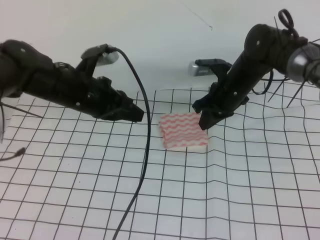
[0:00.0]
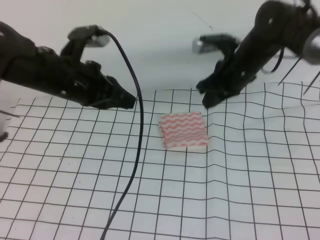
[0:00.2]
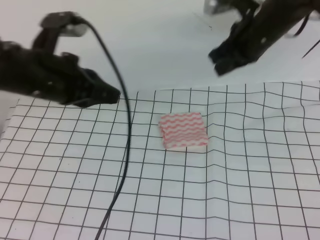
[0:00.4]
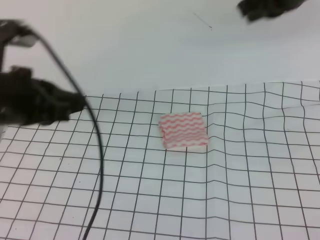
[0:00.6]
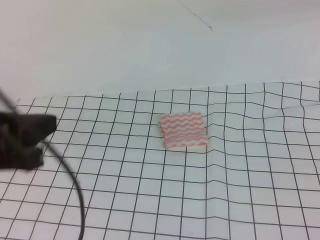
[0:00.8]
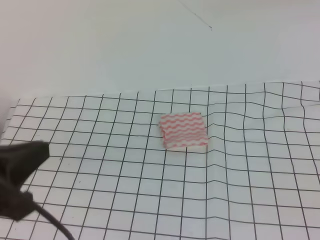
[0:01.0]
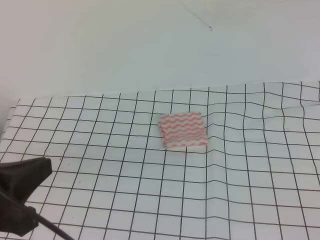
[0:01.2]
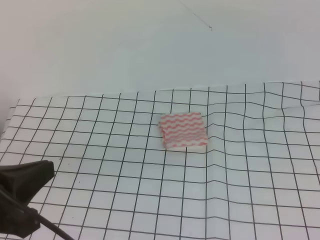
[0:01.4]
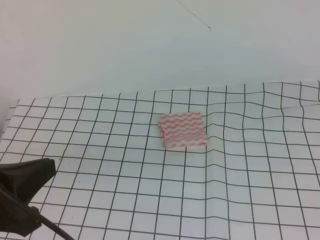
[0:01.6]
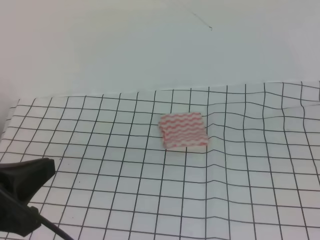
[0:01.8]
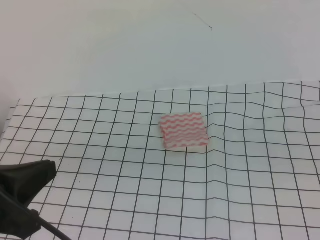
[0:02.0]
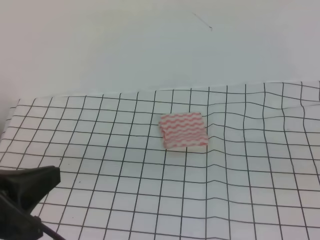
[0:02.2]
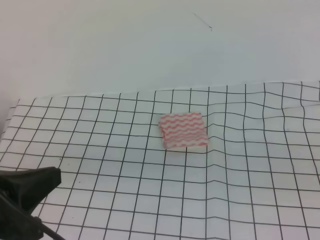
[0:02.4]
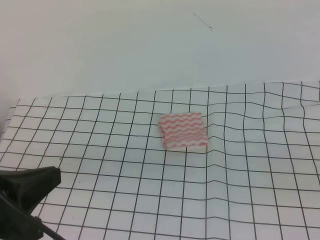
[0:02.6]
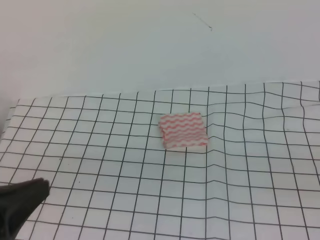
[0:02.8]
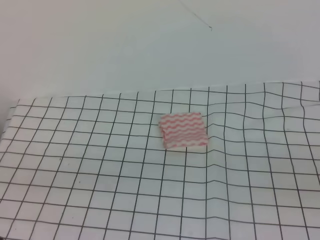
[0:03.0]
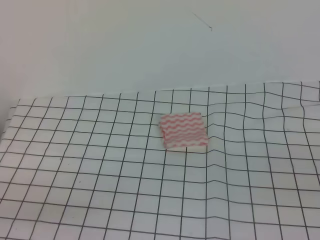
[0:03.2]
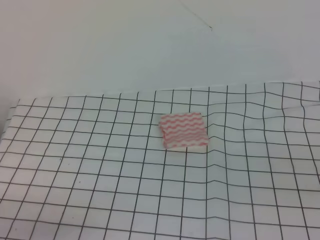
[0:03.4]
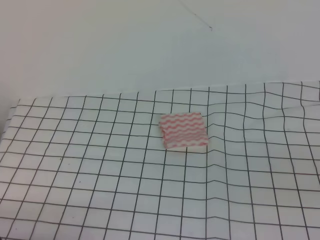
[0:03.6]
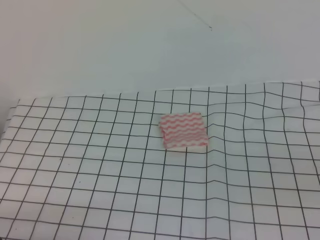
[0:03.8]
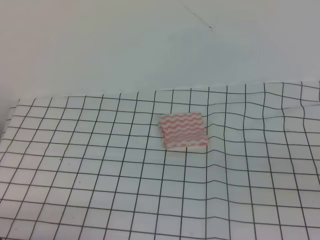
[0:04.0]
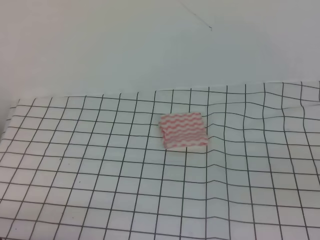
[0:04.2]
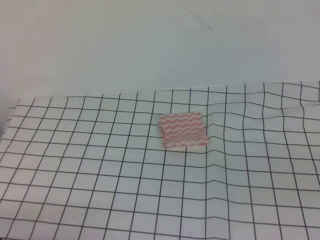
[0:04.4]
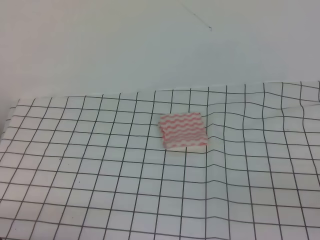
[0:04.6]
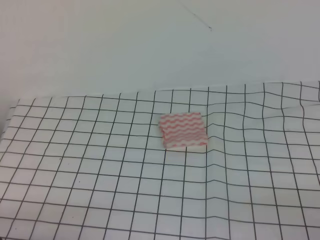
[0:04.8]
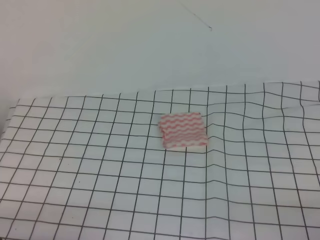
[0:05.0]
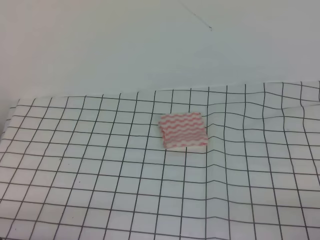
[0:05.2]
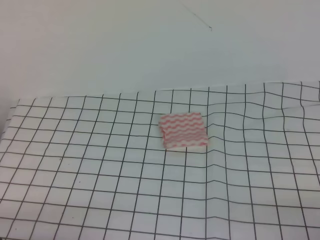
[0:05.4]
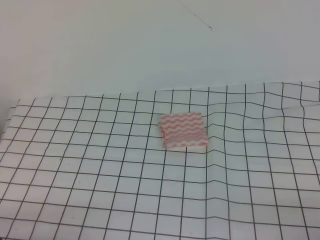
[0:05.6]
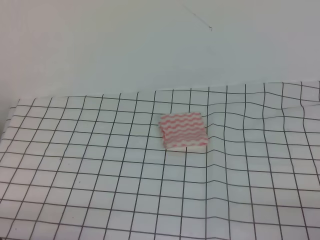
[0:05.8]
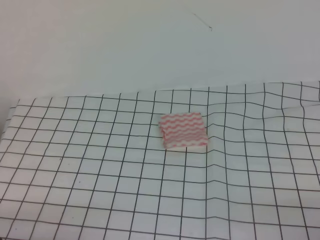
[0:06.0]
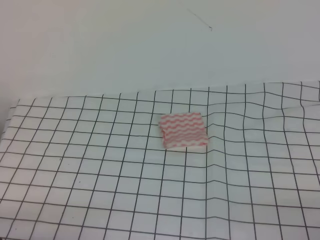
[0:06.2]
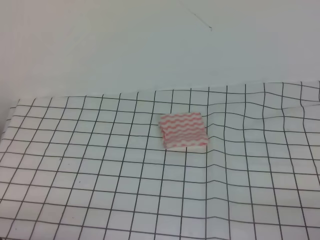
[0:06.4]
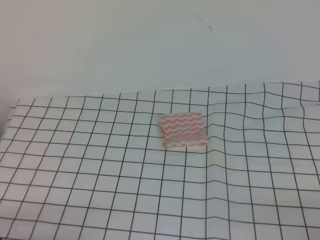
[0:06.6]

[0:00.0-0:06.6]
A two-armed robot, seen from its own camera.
Step, 0:00.0 to 0:06.6: Fold the towel.
0:00.0 to 0:01.6: The left gripper moves backward, approximately 25 cm. The right gripper shifts about 50 cm backward, upward and to the right.
0:01.6 to 0:03.2: The left gripper heads downward and backward, covering approximately 10 cm, while the right gripper travels downward by roughly 20 cm.
0:05.0 to 0:06.6: Neither gripper changes place.
